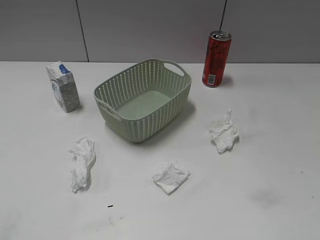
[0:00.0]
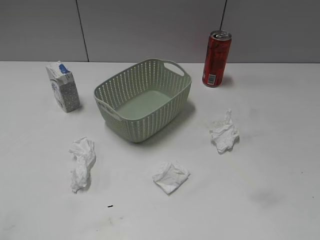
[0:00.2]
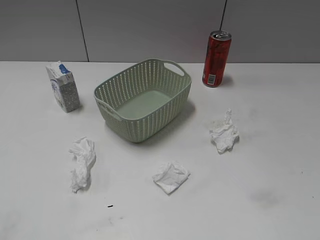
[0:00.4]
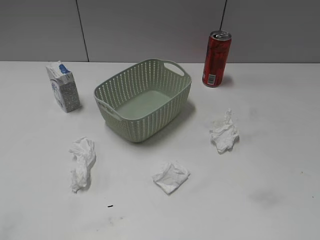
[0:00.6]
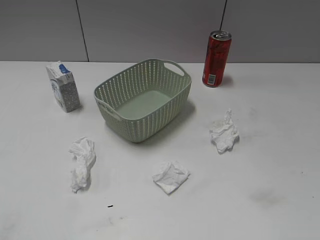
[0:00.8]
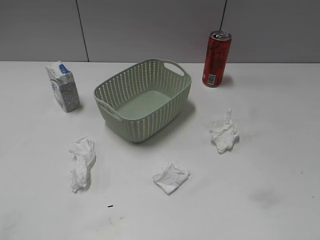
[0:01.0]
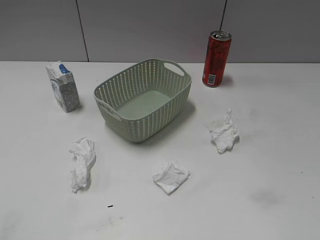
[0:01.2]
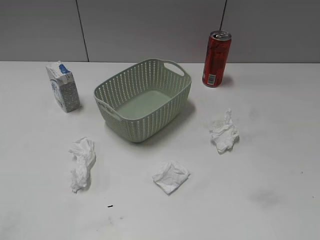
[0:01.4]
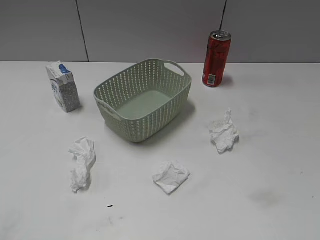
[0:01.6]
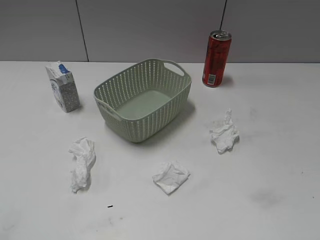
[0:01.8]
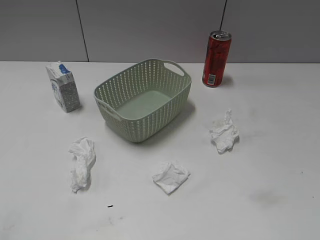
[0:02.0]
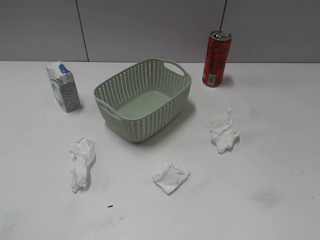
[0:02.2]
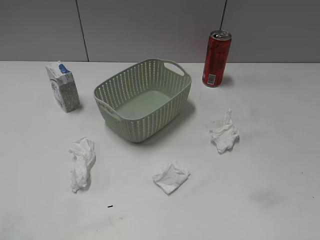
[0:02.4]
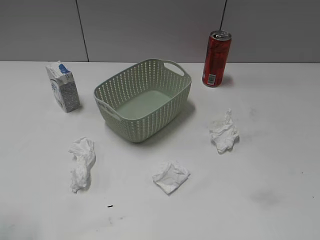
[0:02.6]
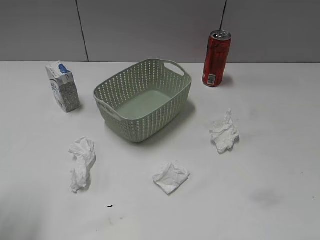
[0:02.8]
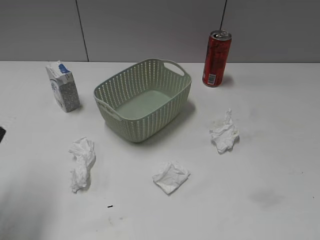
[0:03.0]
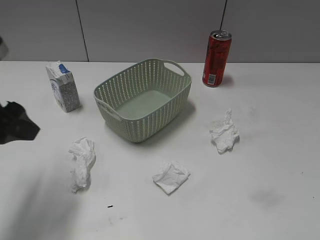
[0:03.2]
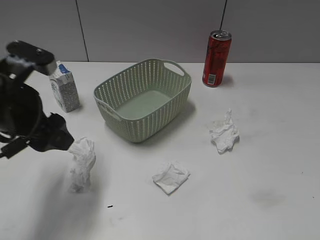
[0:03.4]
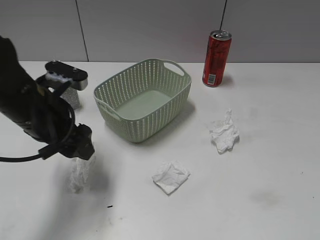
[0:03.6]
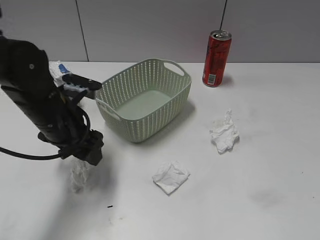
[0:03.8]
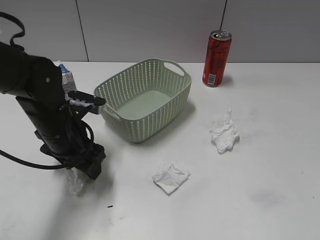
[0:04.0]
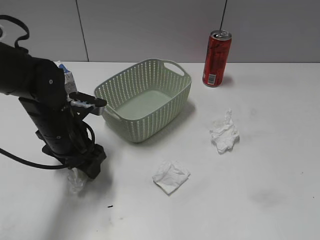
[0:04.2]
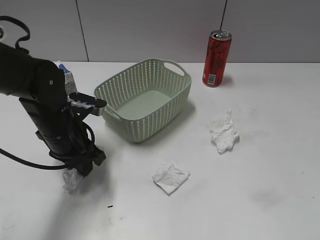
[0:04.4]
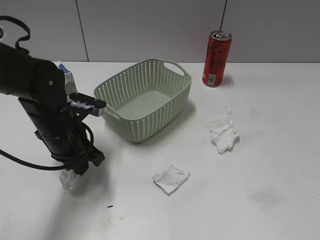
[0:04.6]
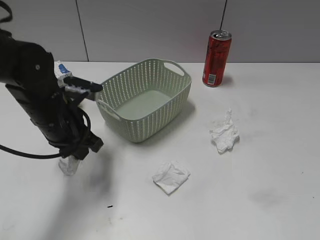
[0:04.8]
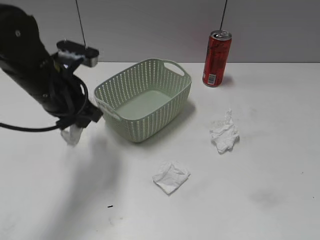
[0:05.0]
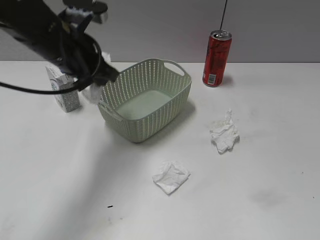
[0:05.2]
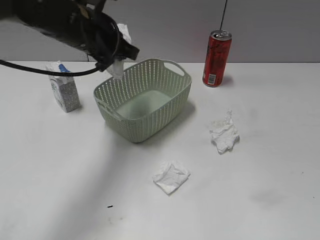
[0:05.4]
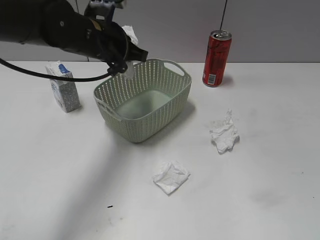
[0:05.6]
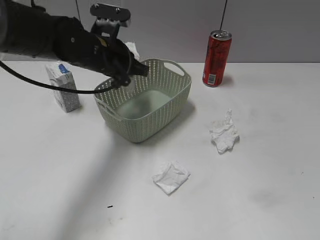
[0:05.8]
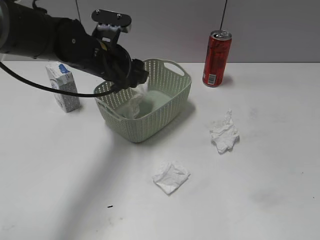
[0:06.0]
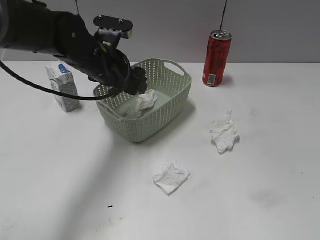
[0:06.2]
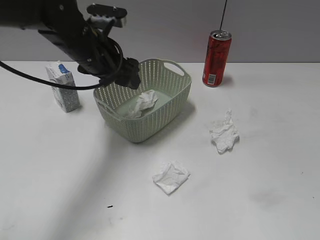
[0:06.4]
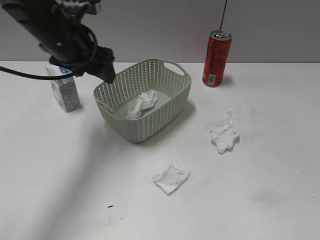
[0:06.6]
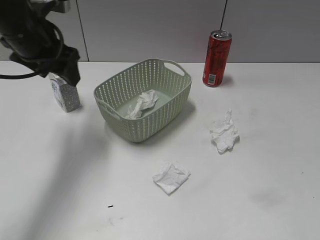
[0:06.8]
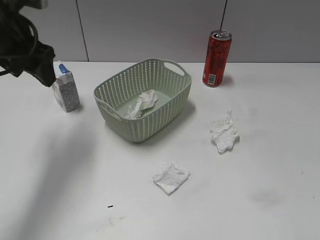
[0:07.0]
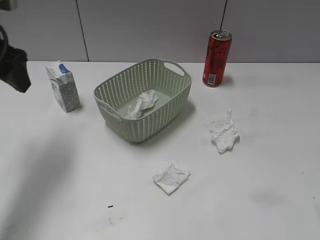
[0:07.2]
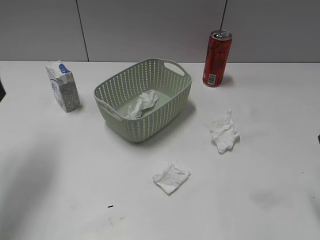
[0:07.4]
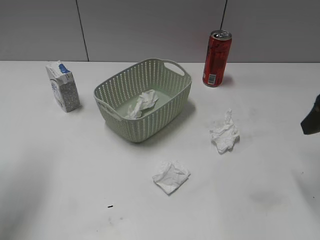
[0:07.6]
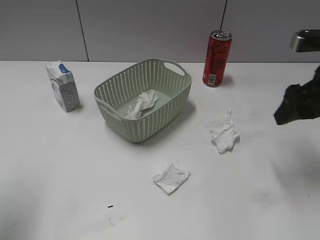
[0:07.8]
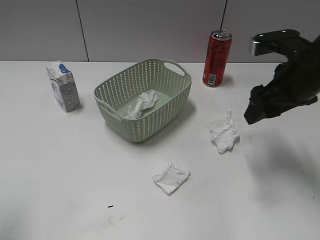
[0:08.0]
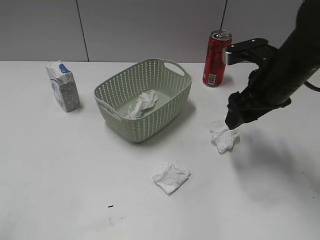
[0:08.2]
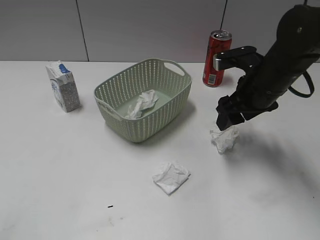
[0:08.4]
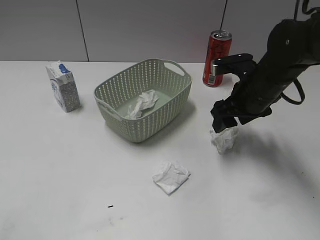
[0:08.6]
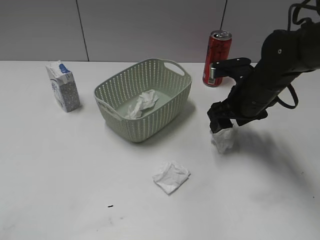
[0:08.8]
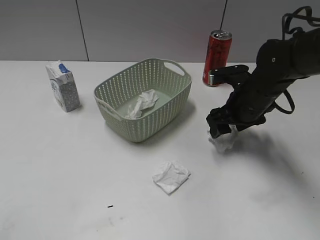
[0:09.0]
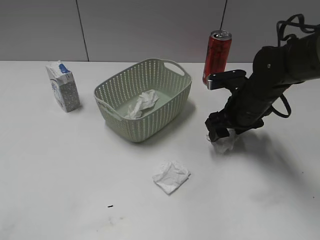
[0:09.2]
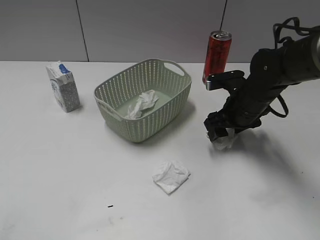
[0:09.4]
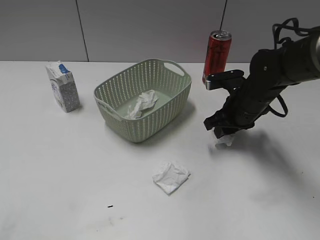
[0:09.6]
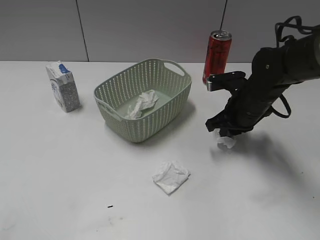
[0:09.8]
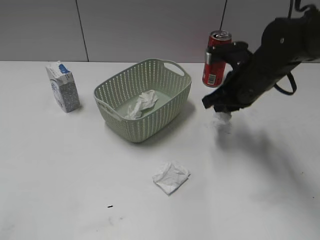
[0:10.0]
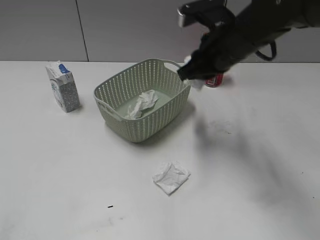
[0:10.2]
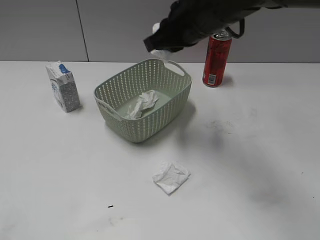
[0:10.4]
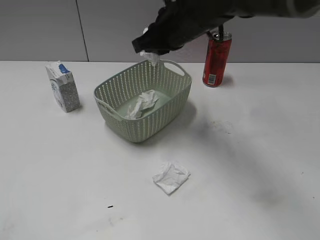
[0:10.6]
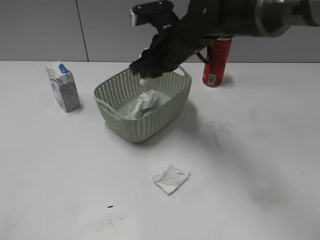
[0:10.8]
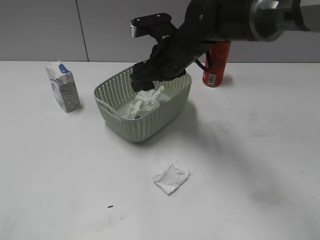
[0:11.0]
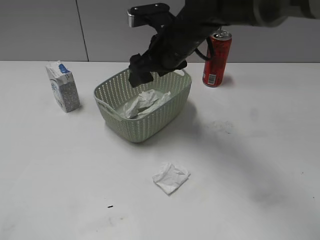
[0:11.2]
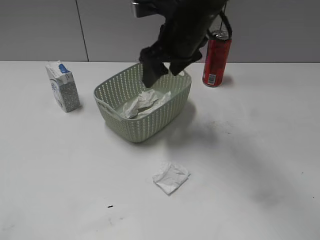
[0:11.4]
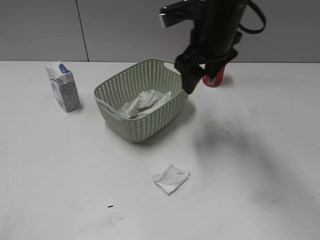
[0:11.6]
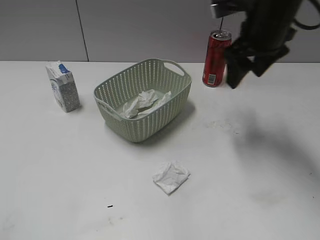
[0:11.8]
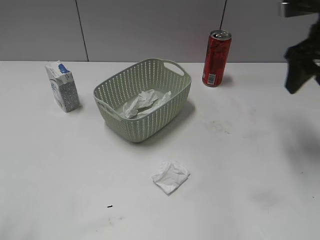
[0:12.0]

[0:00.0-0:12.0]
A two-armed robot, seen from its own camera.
Step, 2.8 to 4.6 s: Grasp the waste paper with left gripper.
Step, 4.8 to 6.2 s: Place the waste paper in the basket with left gripper.
Step, 6.4 to 9.8 s: Grasp the waste paper with right gripper.
Step, 10.0 to 11.2 s: Place the waste paper in the basket with right gripper.
1.6 to 3.0 s: The left gripper travels forward by roughly 20 cm.
3.0 to 4.4 s: The left gripper moves downward, to the right and forward, about 20 cm, and closes.
4.4 to 6.0 s: The left gripper travels forward, upward and to the right by approximately 10 cm, and opens up.
6.0 to 7.6 s: The right gripper heads forward, covering approximately 25 cm; the left gripper moves to the left, backward and upward, some 25 cm.
7.6 to 9.0 s: The left gripper is displaced backward by some 25 cm, while the right gripper travels downward, to the left and forward by roughly 20 cm.
9.0 to 10.4 s: The right gripper is displaced upward and to the left by about 20 cm, and closes up.
10.4 to 12.0 s: The right gripper travels to the right by some 20 cm, and opens, while the left gripper goes roughly 10 cm forward.

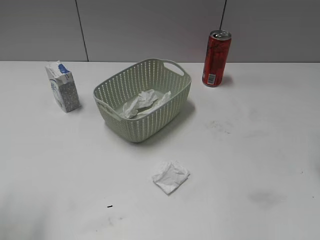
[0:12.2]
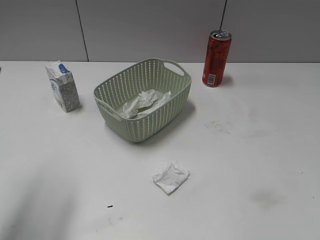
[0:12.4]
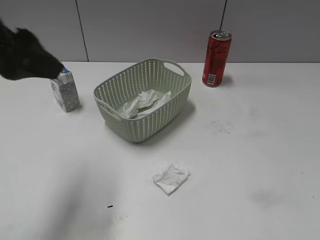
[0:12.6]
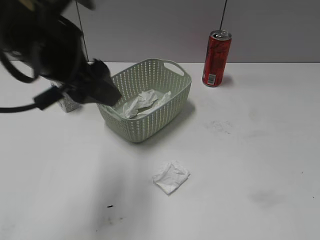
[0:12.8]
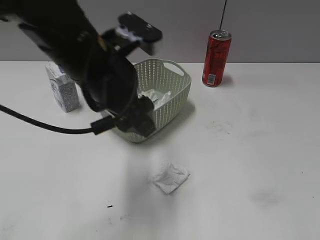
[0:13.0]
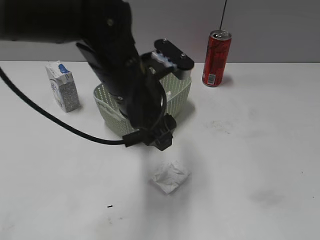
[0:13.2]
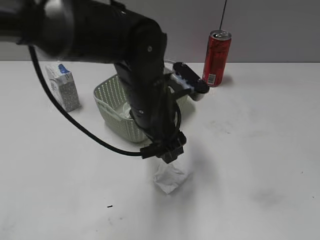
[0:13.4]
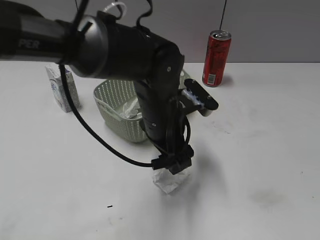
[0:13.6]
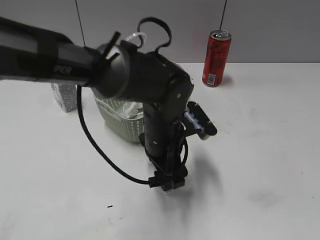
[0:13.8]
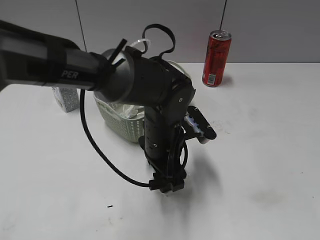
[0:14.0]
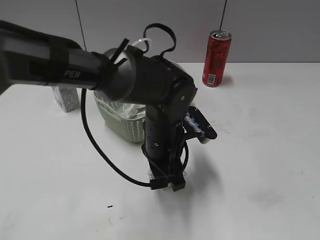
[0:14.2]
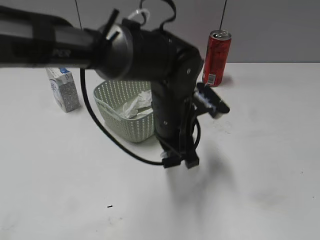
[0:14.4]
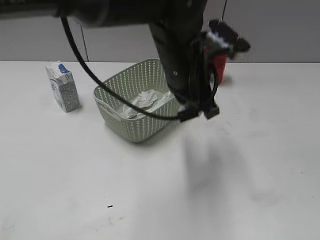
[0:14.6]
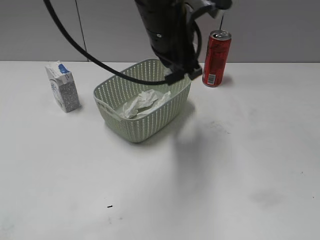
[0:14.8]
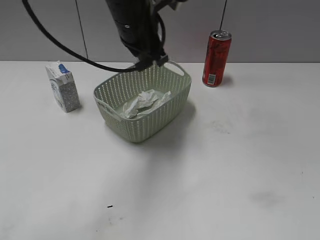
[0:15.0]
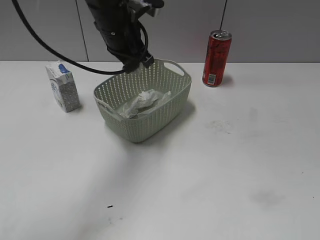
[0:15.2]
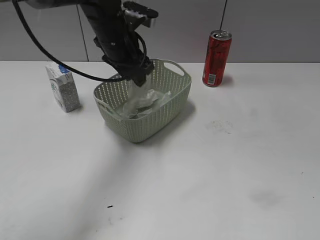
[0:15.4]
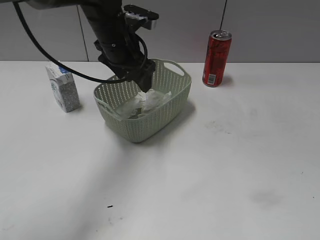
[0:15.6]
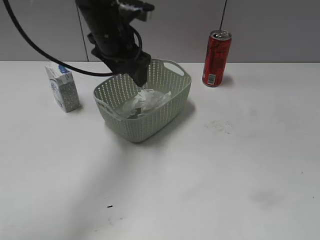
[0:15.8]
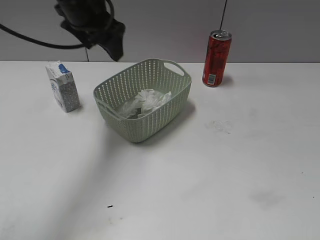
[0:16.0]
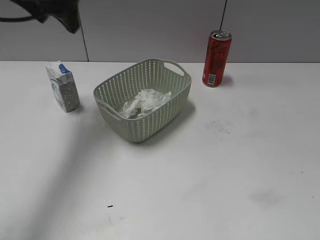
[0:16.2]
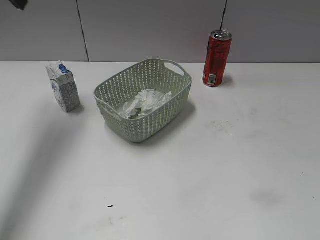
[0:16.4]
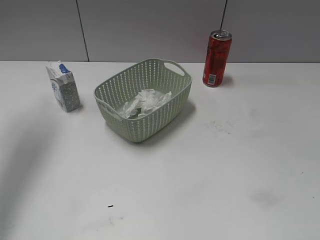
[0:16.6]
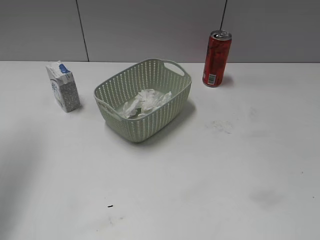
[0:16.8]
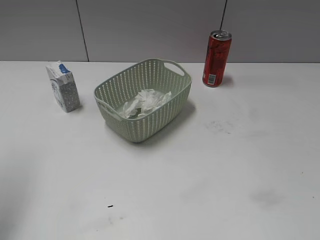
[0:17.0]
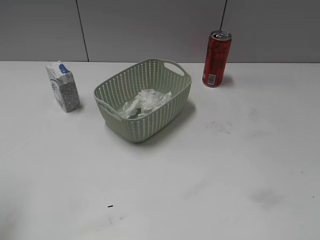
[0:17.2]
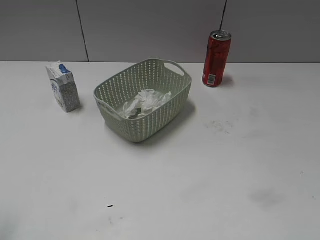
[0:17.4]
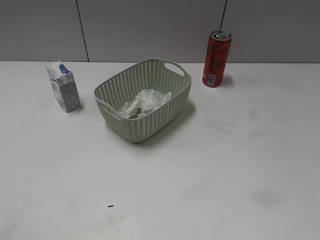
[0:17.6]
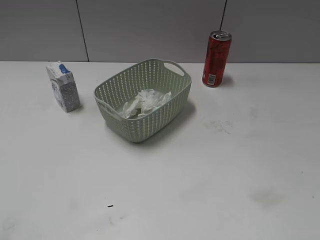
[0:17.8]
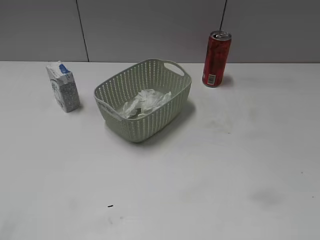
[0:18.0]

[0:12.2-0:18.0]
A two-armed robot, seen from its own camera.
Step, 12.2 to 14.2 s: Grasp the waste paper with left gripper.
Step, 14.4 to 15.6 s: Place the waste paper in the basket with left gripper.
12.2 to 13.6 s: The left gripper goes some 35 cm to the right, downward and forward, while the right gripper heads backward, covering some 25 cm.
13.6 to 15.0 s: The left gripper travels upward and forward by some 15 cm, and closes up.
15.0 to 16.6 s: The left gripper goes approximately 30 cm to the left and upward, and opens up.
16.6 to 18.0 s: The left gripper travels backward by about 35 cm.

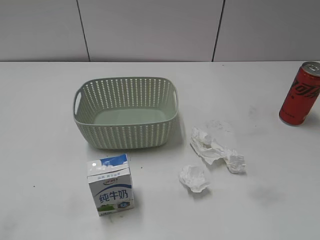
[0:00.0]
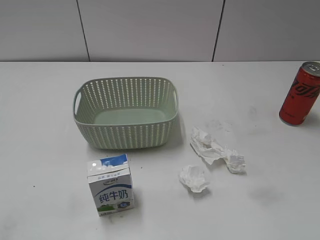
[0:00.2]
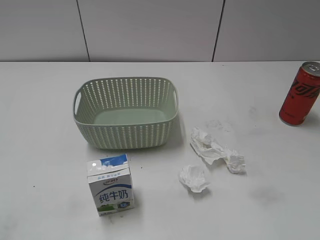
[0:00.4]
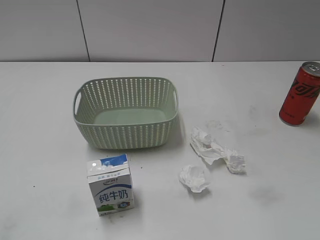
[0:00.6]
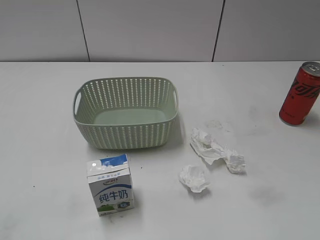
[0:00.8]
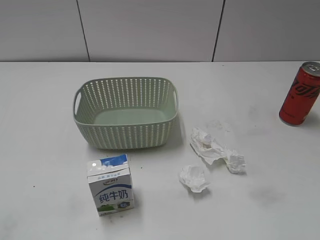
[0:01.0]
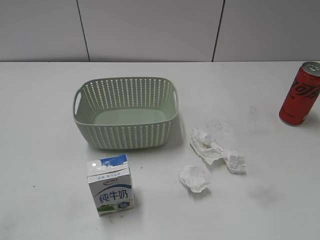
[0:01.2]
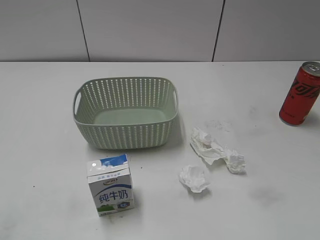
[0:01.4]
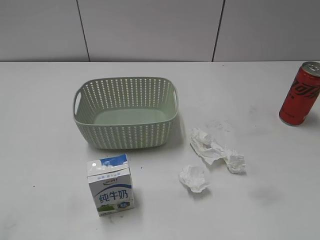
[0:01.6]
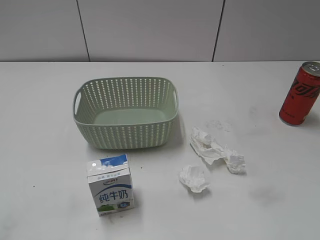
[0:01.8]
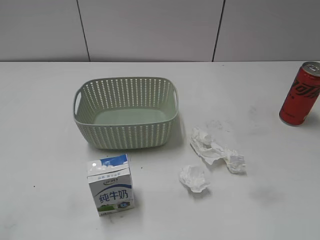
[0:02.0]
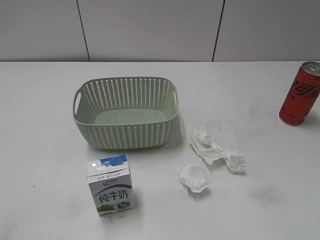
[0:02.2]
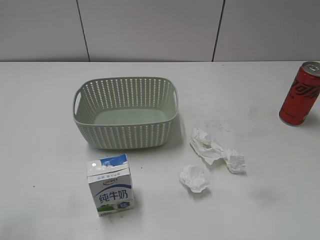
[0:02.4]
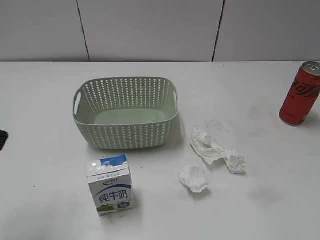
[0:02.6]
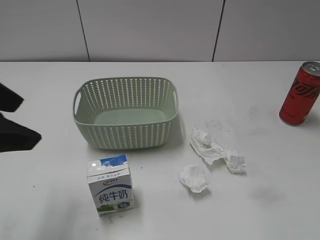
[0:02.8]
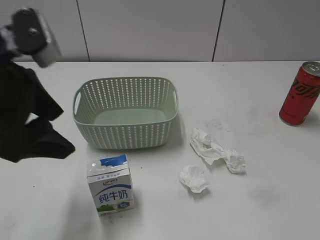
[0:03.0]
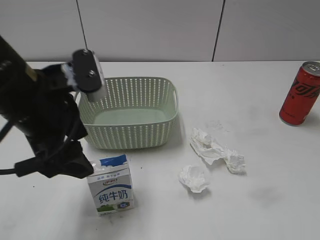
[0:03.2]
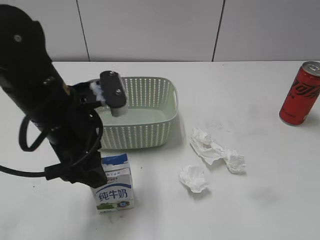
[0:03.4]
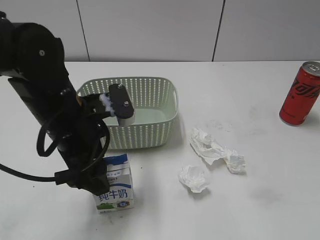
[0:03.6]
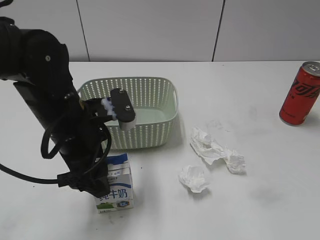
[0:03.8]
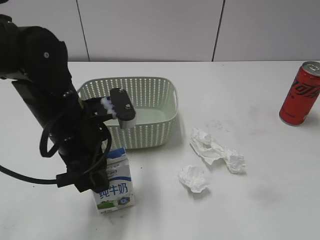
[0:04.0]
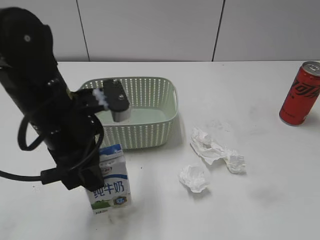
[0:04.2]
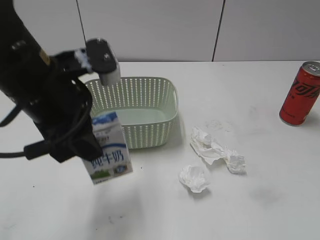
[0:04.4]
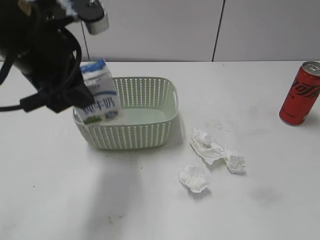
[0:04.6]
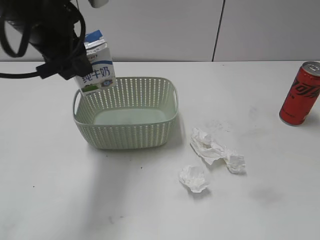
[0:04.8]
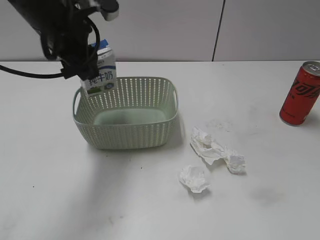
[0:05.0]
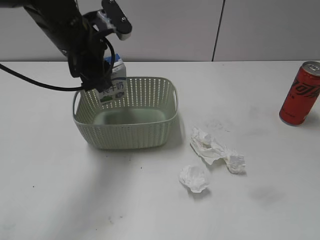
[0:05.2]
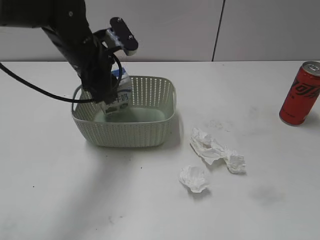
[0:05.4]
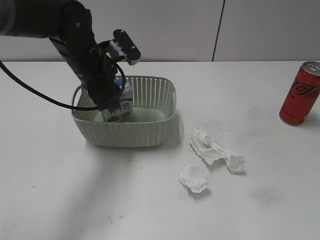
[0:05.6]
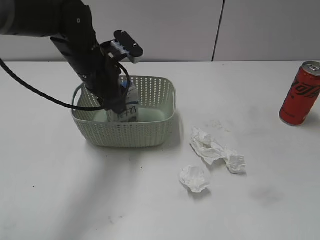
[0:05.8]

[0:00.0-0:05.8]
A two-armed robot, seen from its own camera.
Step, 2.6 to 3.8 s: Grasp the milk with left gripper.
1.4 to 2.8 s: The left gripper is displaced forward and to the right by roughly 20 cm.
2.8 to 4.4 s: The left gripper shifts roughly 10 cm to the right, forward and downward, and closes up.
4.4 to 5.8 s: The left gripper moves forward and downward, roughly 15 cm.
